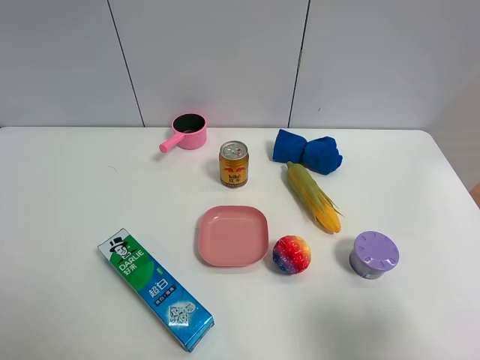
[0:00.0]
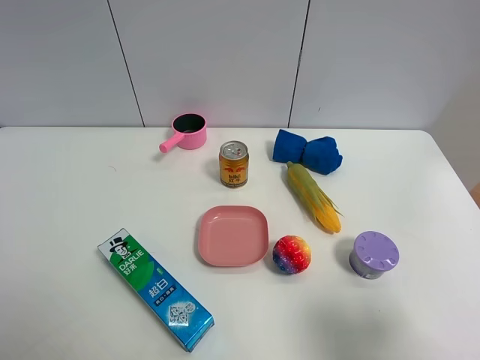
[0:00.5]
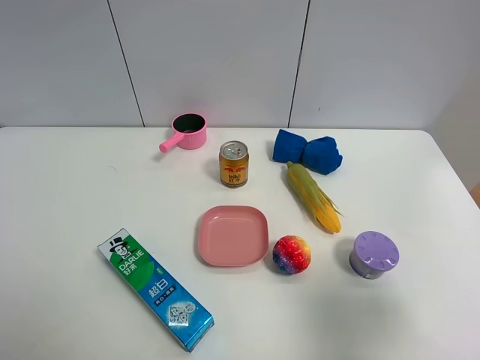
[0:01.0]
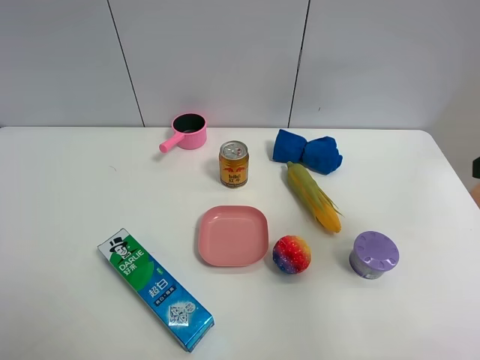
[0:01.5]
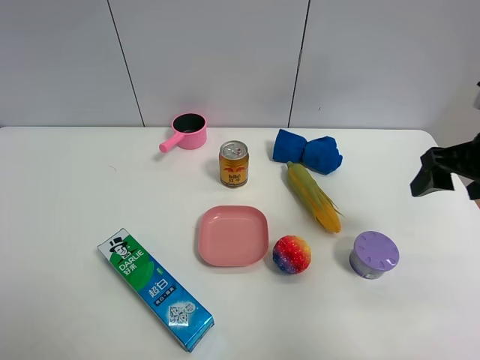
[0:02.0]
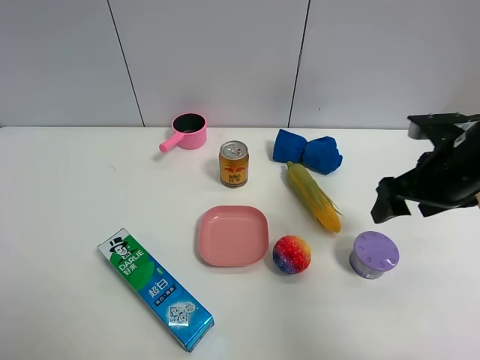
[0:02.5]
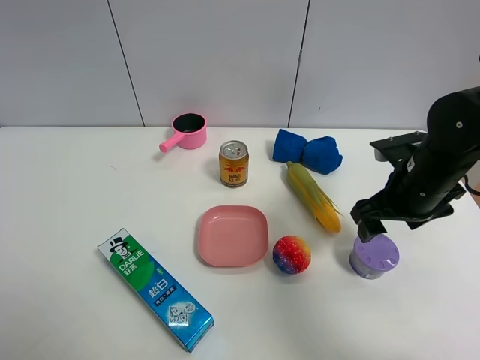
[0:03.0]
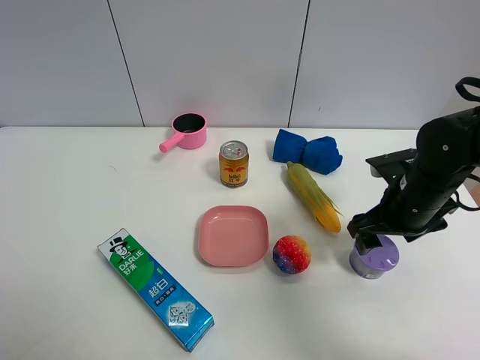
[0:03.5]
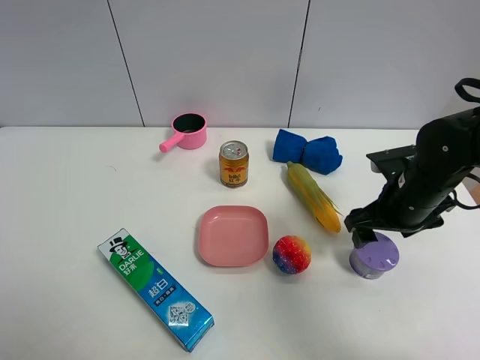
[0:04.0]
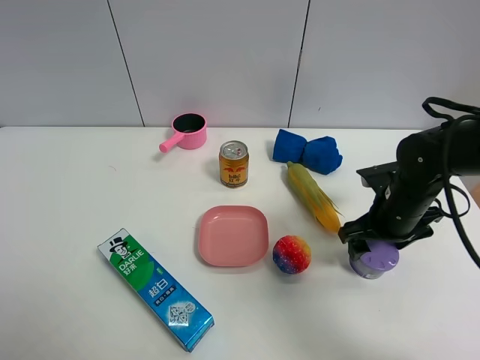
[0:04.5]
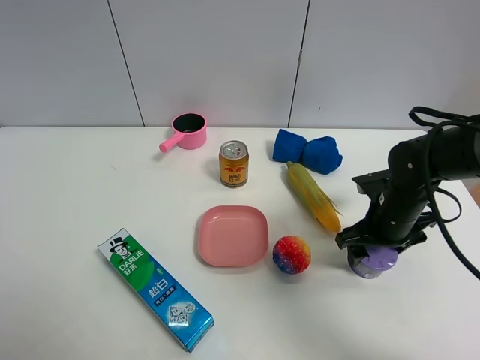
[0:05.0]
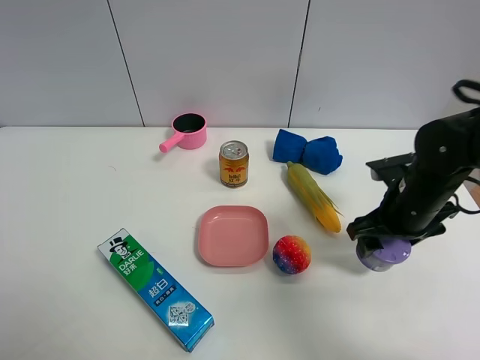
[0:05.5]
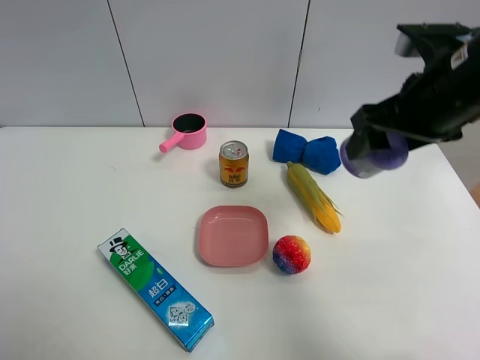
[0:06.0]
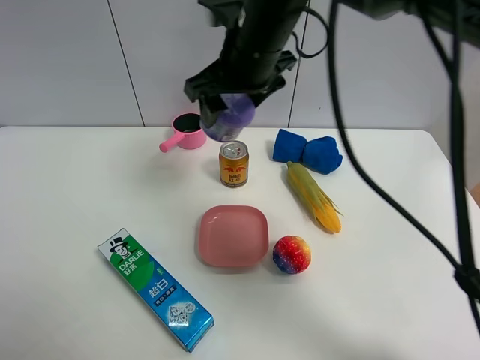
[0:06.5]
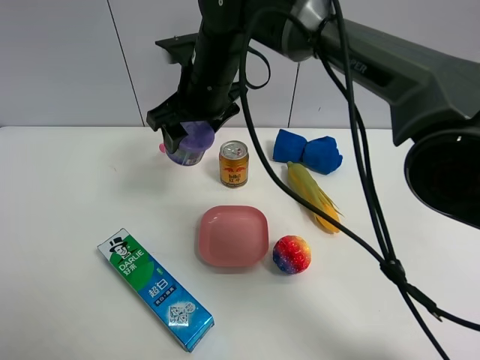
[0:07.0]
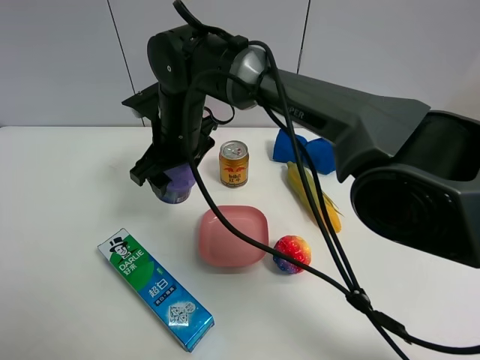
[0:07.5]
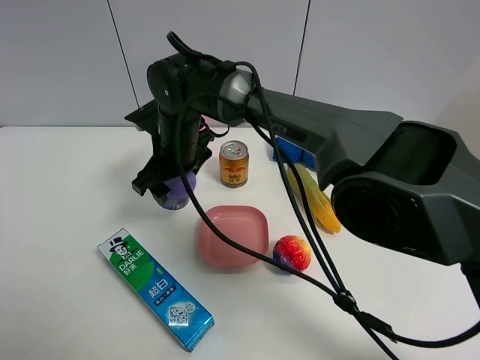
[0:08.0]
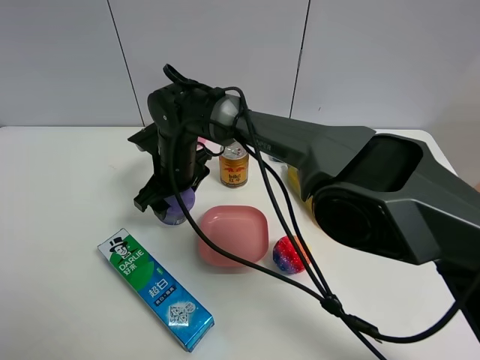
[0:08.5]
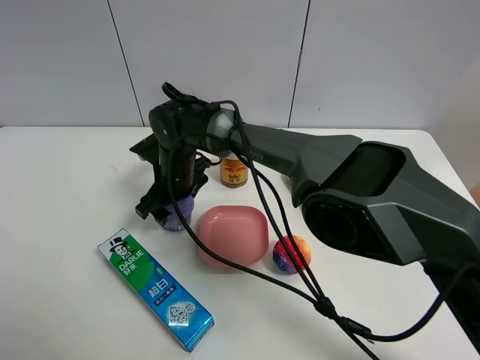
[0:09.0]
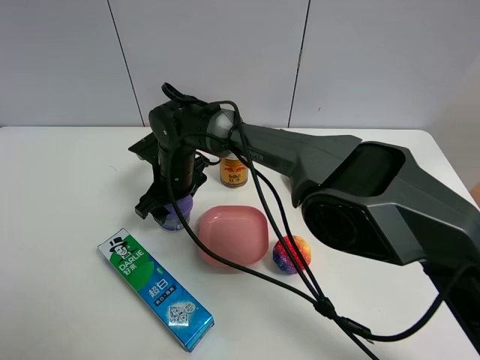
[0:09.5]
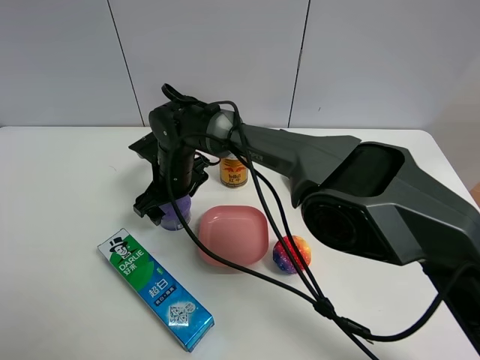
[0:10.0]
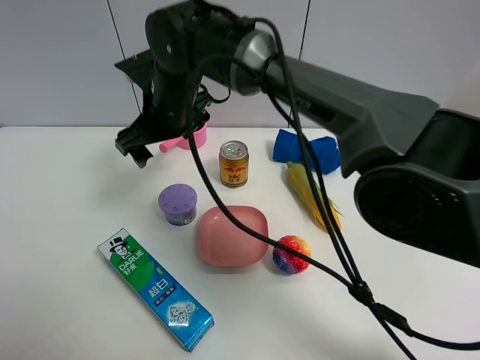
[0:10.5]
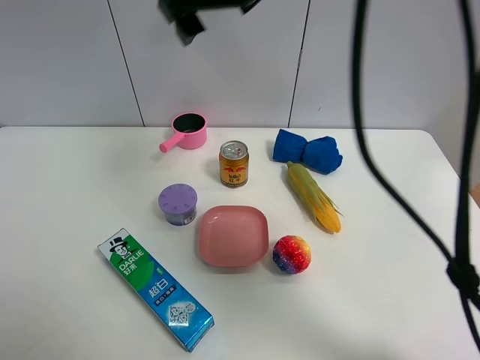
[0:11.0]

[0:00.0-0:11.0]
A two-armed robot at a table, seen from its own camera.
Task of the whole recording: the gripper move the object.
Step, 0:00.0 to 0:05.0: Grasp the Incense box with the right gripper.
Step, 0:05.5 to 0:10.0: Place the Incense box on the table with the right gripper.
0:00.0 to 0:02.0: The right gripper goes about 25 cm forward, and closes its fingers.
0:02.0 to 0:03.5: The right gripper moves downward and to the left, approximately 10 cm.
0:03.5 to 0:05.5: The right gripper closes its fingers.
0:05.5 to 0:07.5: The right gripper moves to the left, approximately 30 cm.
0:07.5 to 0:09.0: The right gripper shifts some 10 cm downward.
0:09.0 to 0:11.0: The right gripper is displaced upward by some 30 cm, and opens up.

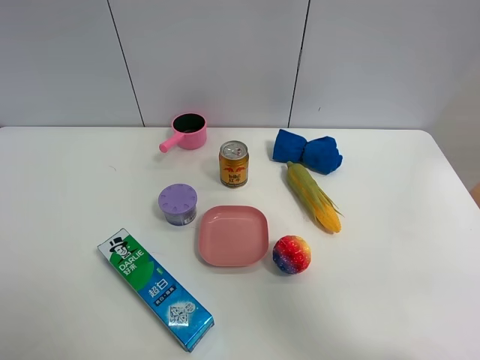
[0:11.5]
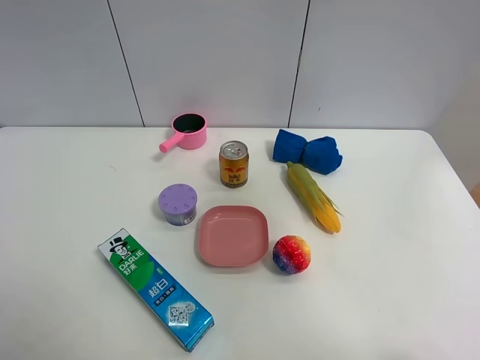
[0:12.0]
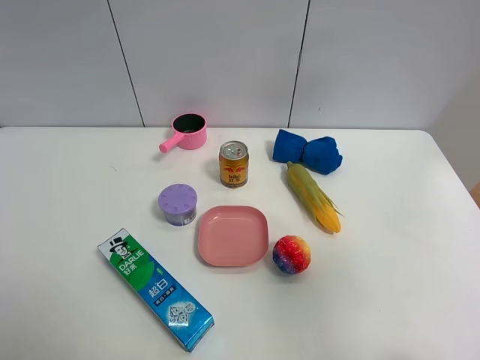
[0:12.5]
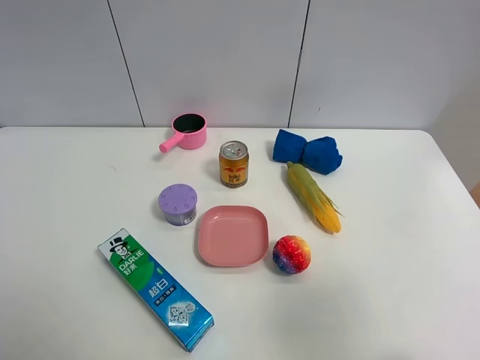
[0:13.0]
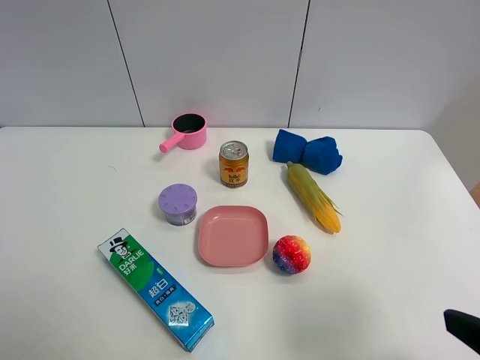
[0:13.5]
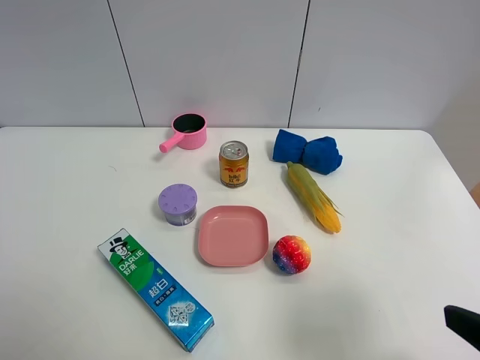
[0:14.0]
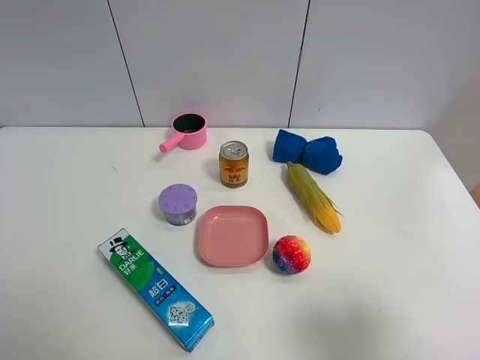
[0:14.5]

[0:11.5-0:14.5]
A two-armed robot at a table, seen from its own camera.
Task of the whole recording: the gripper move the object.
0:11.5 to 0:13.0: The right gripper shifts roughly 35 cm backward and downward.
0:13.0 to 0:14.5: The right gripper is displaced downward by some 5 cm.

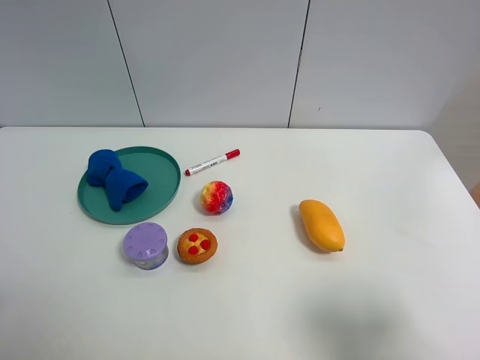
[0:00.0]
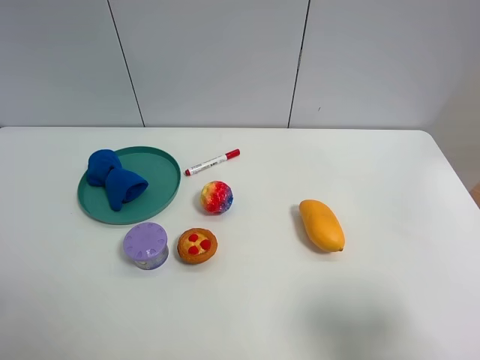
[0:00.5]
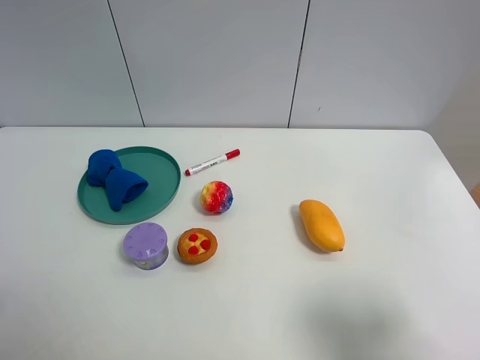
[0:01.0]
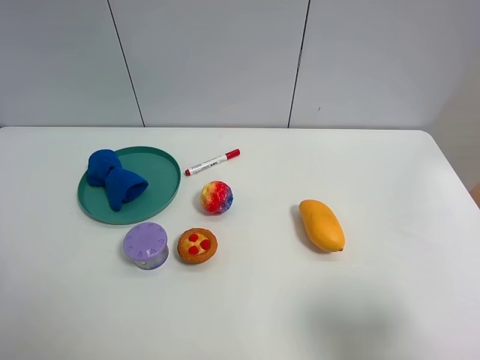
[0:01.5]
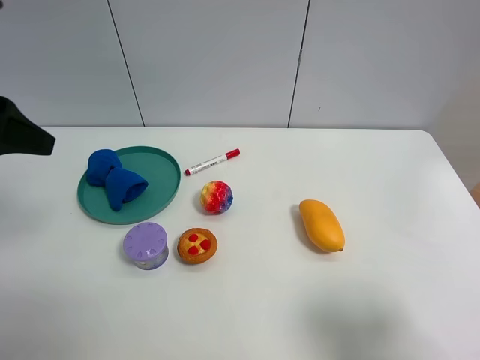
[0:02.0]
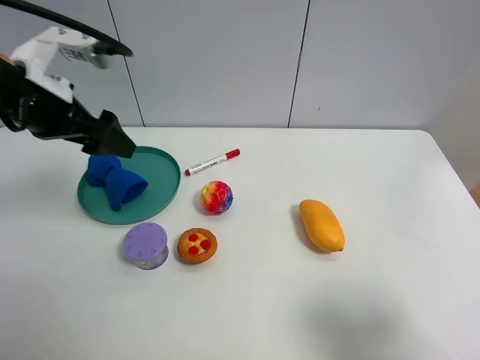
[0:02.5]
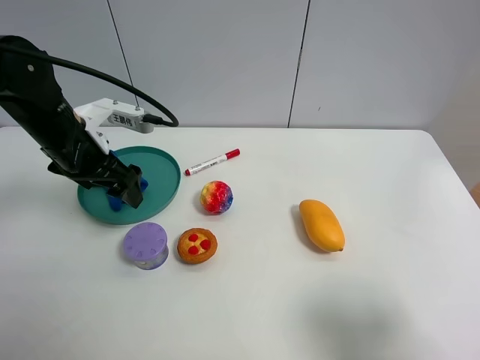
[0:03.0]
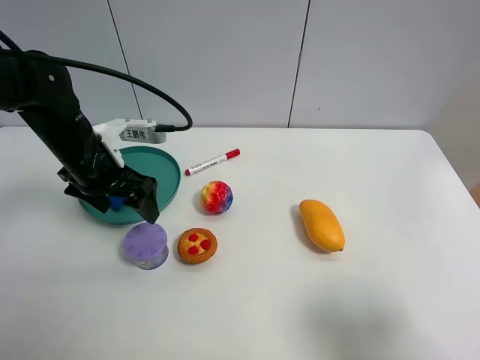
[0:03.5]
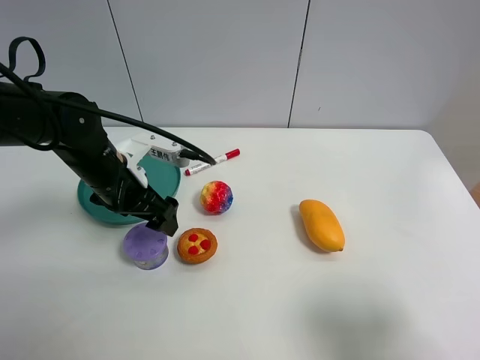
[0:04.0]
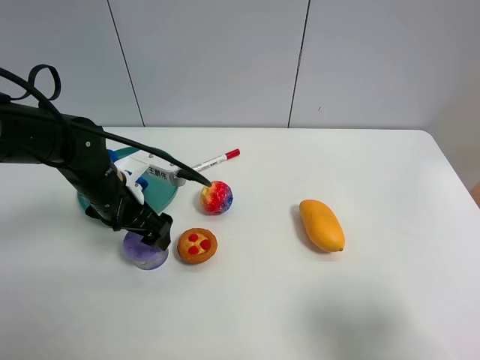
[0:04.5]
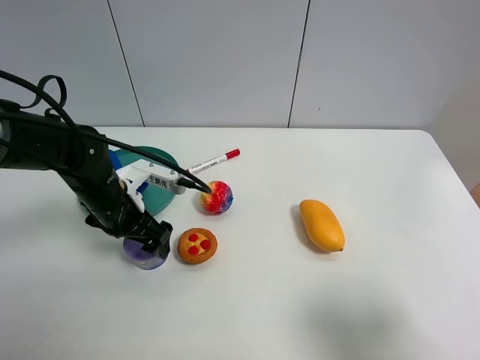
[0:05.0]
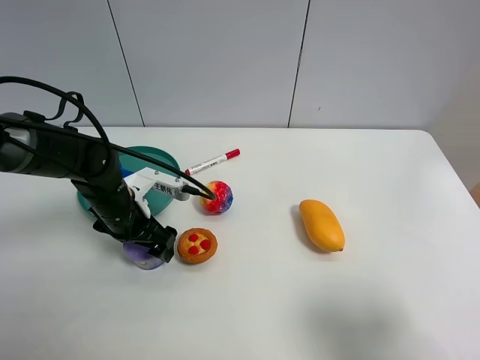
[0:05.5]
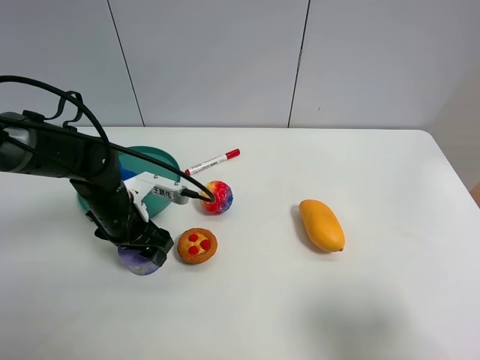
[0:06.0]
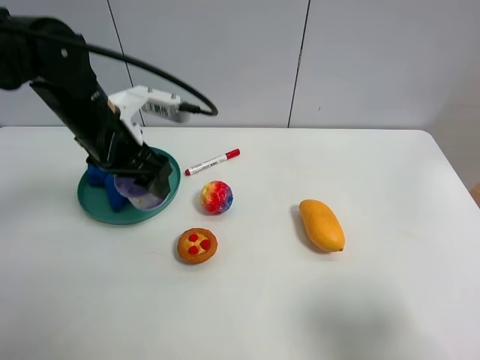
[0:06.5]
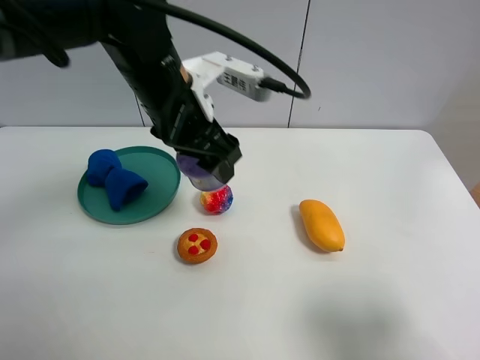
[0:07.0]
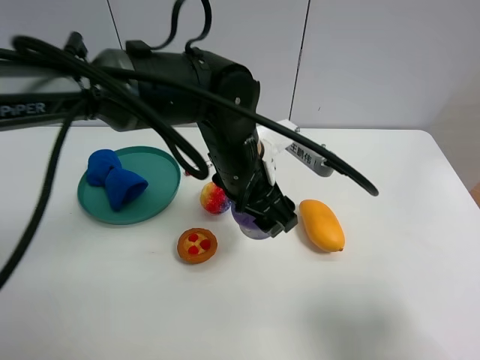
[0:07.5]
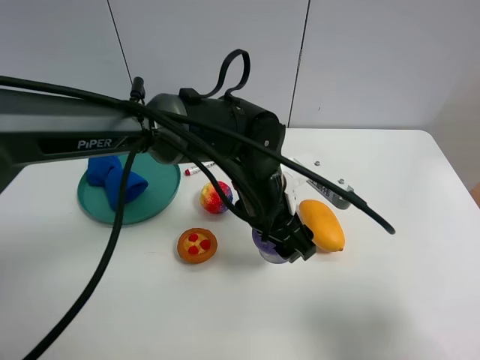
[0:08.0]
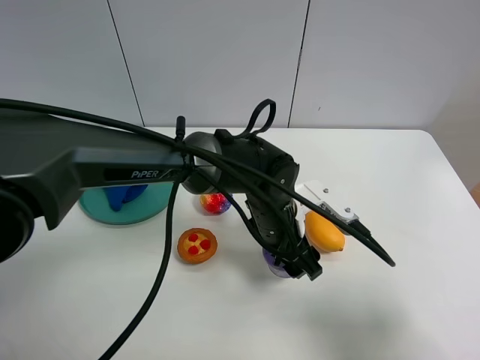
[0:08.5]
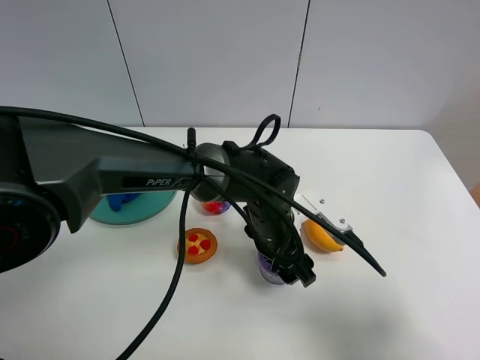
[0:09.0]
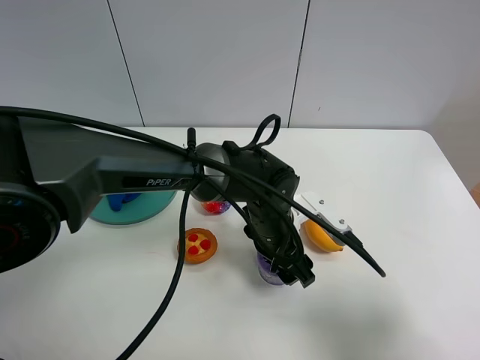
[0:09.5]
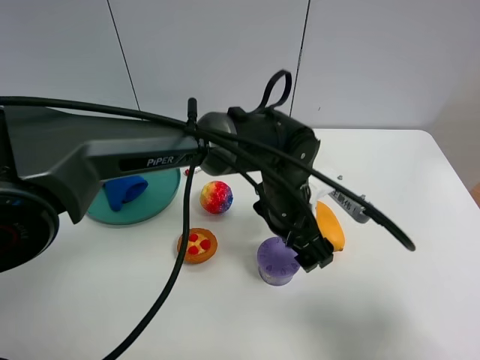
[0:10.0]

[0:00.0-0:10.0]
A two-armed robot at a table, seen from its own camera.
Task of the whole recording: the gripper move the object.
Step, 0:00.0 to 0:05.5: Grasp the Incense box with the left gripper.
Step, 0:06.0 to 0:09.5: Place the Incense box on the table with the left gripper.
0:00.0 to 0:02.0: The left gripper travels forward by about 20 cm.
0:02.0 to 0:04.0: The left gripper travels downward, to the right and forward by approximately 25 cm.
0:04.0 to 0:06.0: The left gripper is displaced downward by roughly 5 cm, and closes.
0:06.0 to 0:08.0: The left gripper heads to the right, covering approximately 20 cm.
0:08.0 to 0:10.0: The left gripper opens.

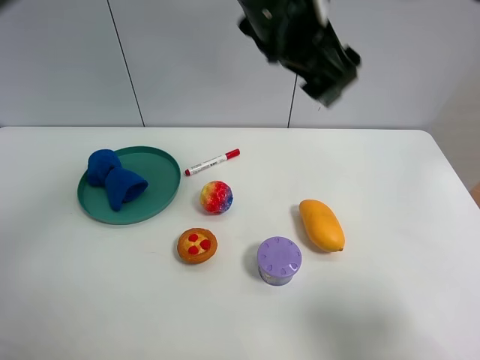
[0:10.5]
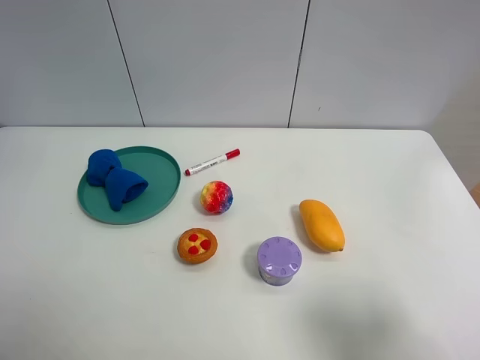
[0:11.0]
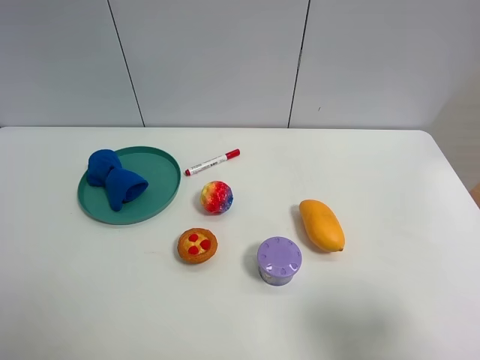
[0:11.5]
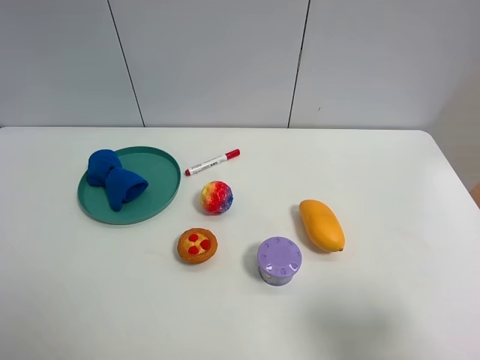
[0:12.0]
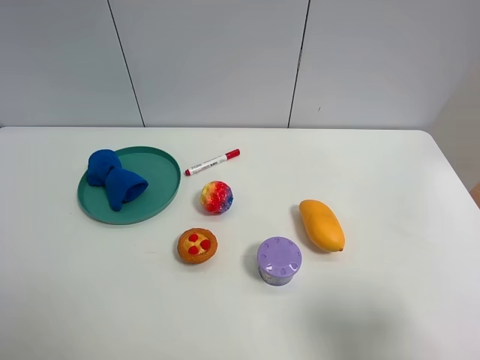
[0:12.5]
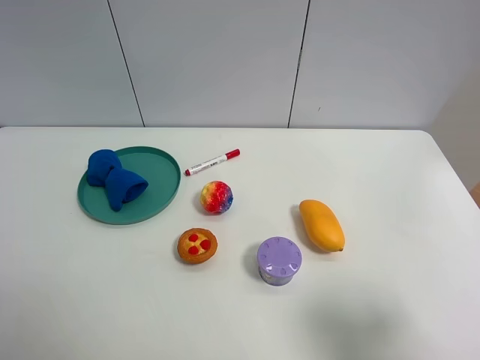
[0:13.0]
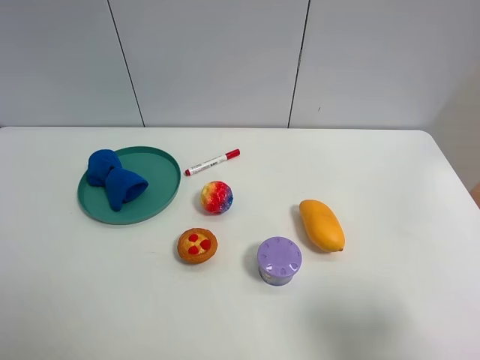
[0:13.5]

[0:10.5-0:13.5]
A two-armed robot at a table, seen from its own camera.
Task of the whole recording: the gripper move the object.
0:10.5 to 0:12.0: The left gripper is displaced to the left and backward by approximately 50 cm.
